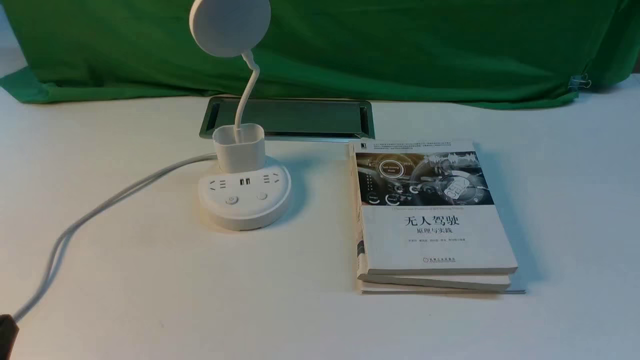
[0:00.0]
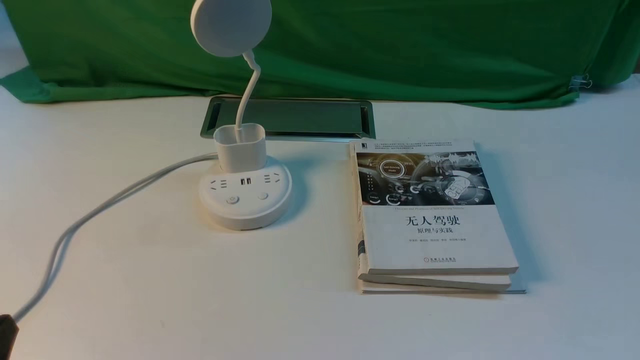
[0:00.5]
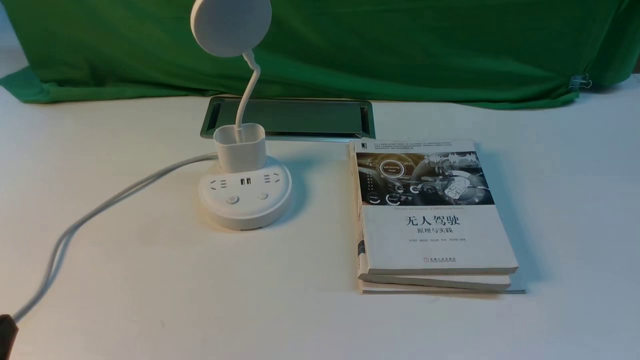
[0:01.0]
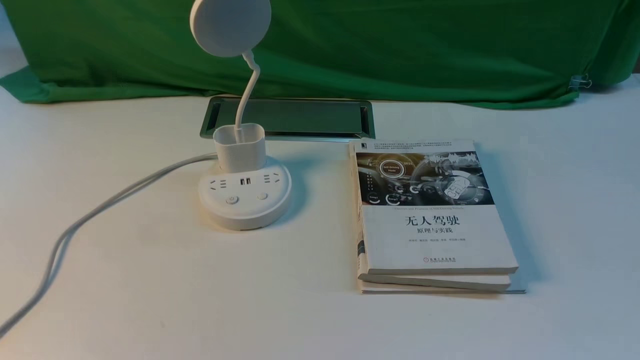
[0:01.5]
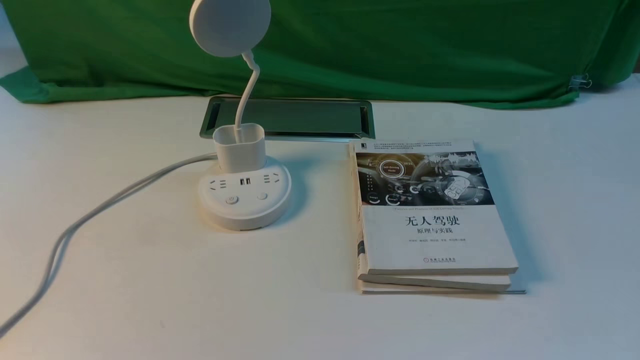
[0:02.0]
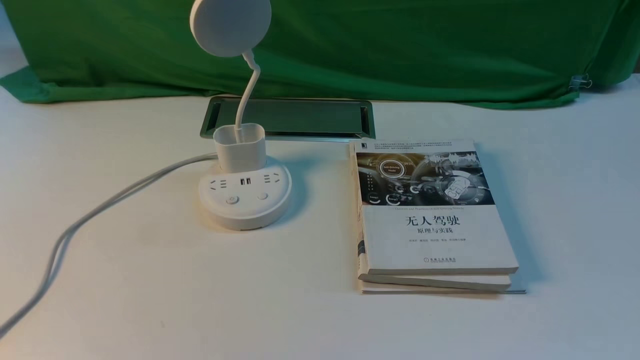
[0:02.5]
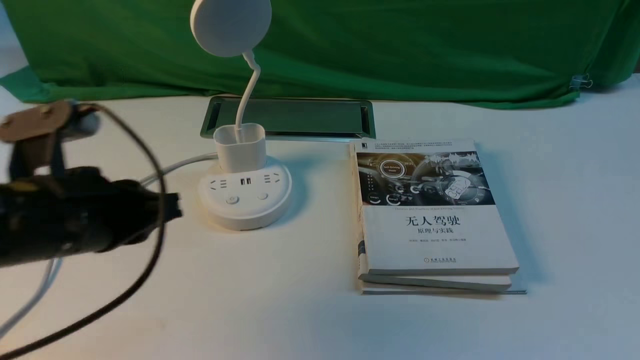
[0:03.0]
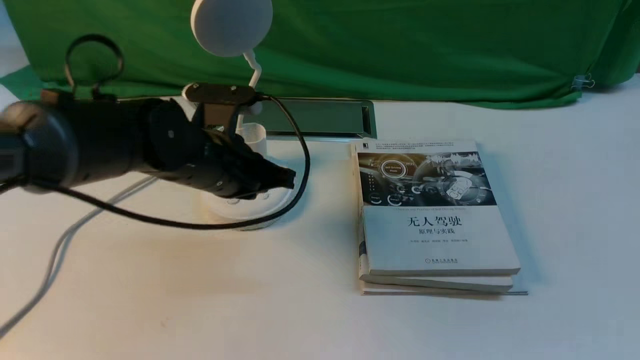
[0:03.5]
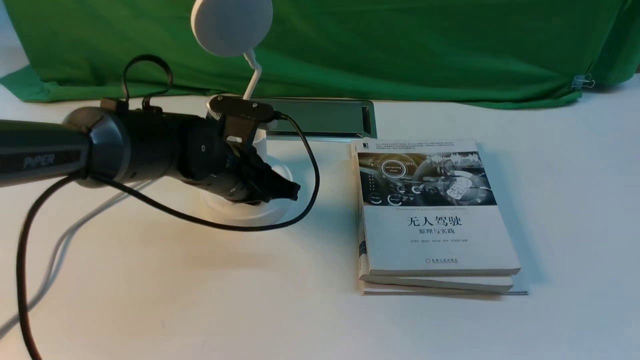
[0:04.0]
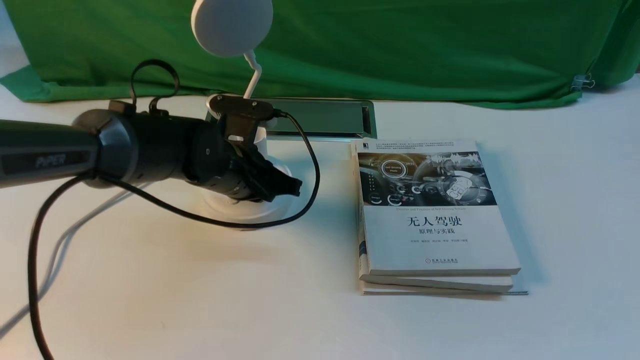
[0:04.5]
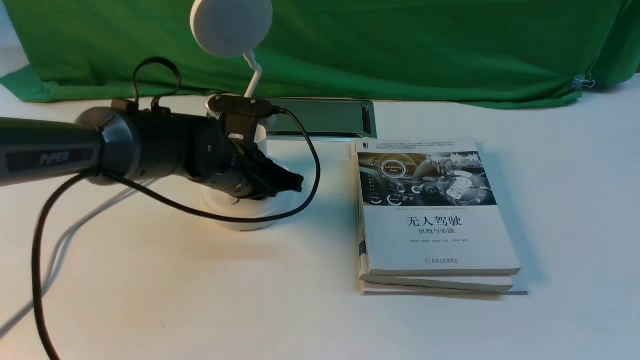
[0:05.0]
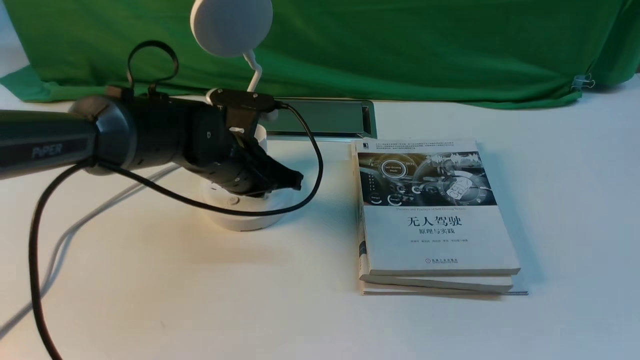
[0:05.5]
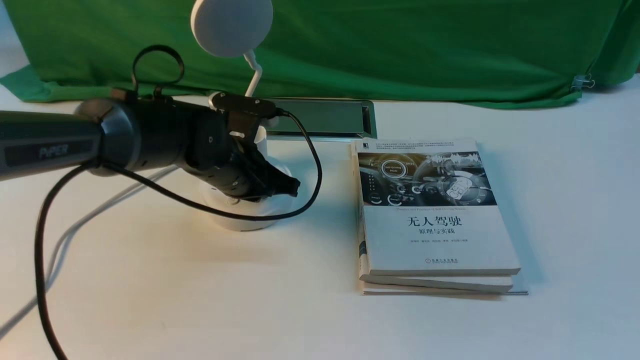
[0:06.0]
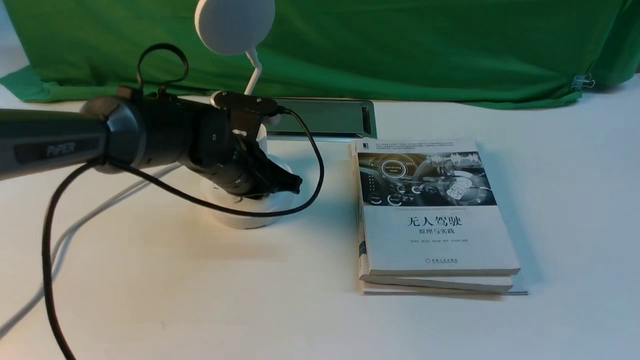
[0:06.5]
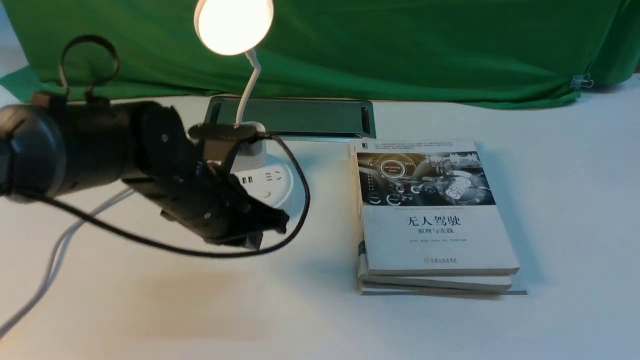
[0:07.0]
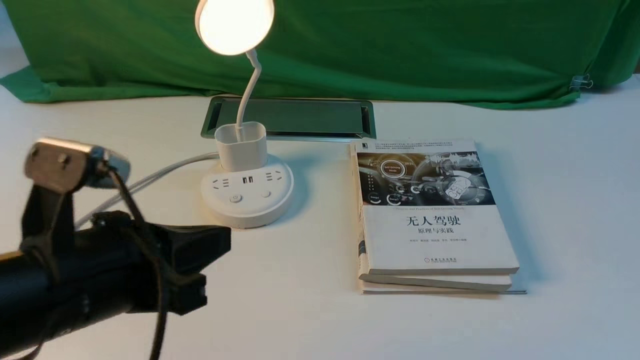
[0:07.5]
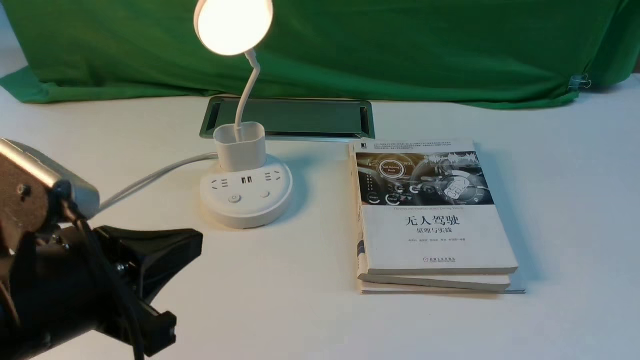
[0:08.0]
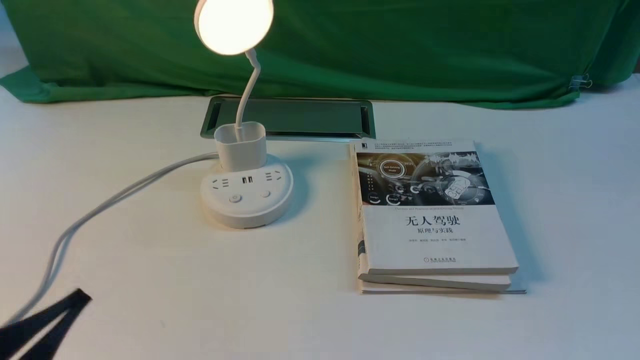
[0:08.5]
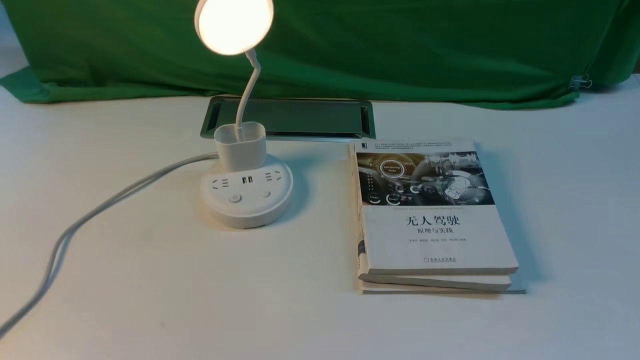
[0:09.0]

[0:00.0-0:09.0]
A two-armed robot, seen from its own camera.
Step, 0:00.0 to 0:07.0: use the left arm to press the button switch on the lamp holder.
0:02.0 to 0:04.5: The left gripper shifts roughly 40 cm forward and to the right.
0:04.5 to 0:07.0: The left gripper shifts by some 5 cm.
0:07.0 to 0:09.0: The left gripper goes about 30 cm backward and to the left.

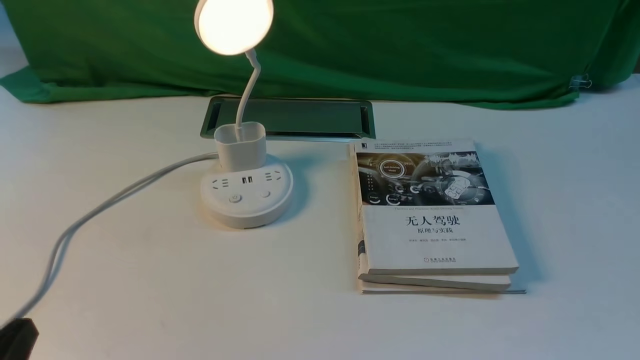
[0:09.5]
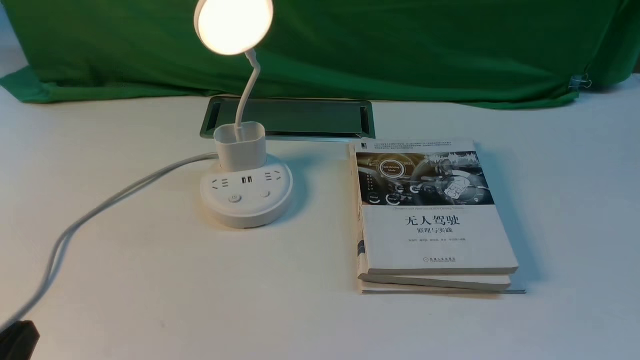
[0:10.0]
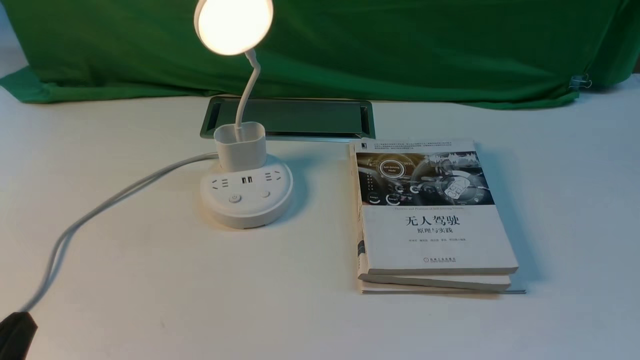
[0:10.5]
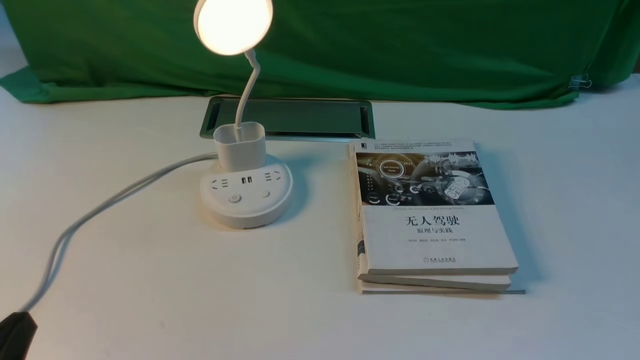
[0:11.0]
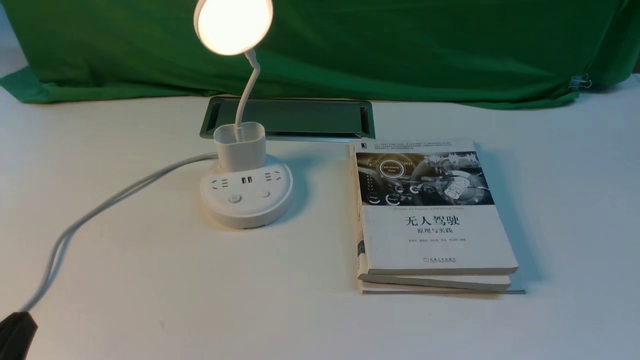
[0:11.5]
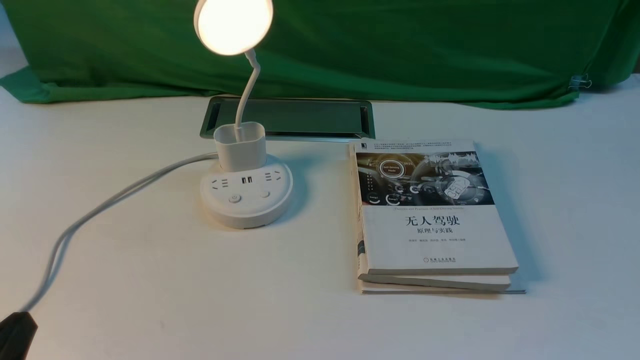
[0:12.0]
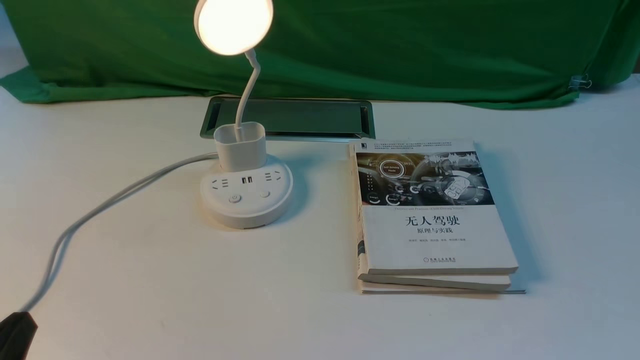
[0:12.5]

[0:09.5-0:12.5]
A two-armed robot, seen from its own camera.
0:11.0 to 0:12.5: Both grippers stay put.

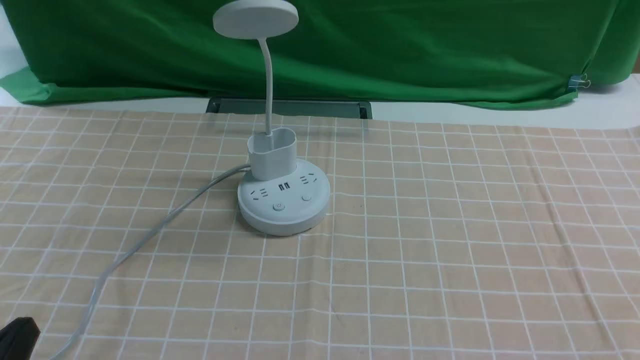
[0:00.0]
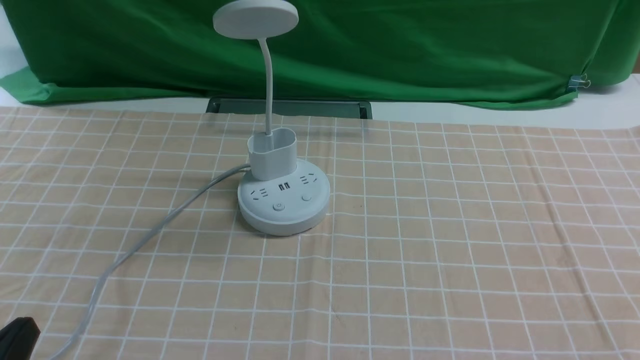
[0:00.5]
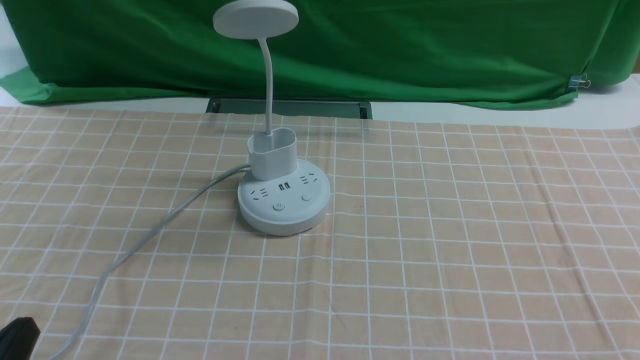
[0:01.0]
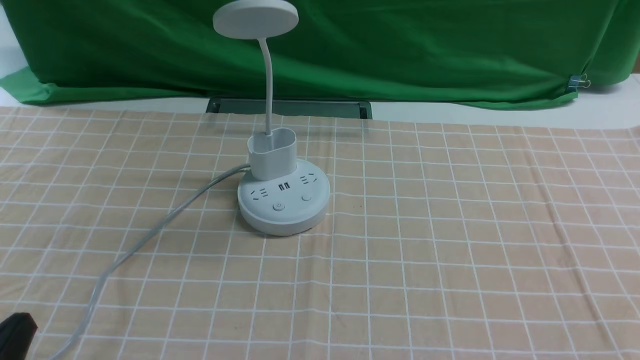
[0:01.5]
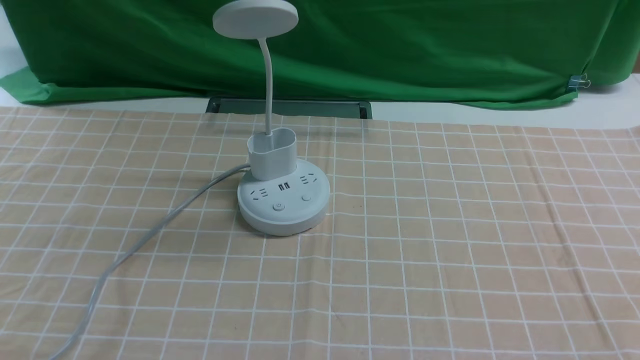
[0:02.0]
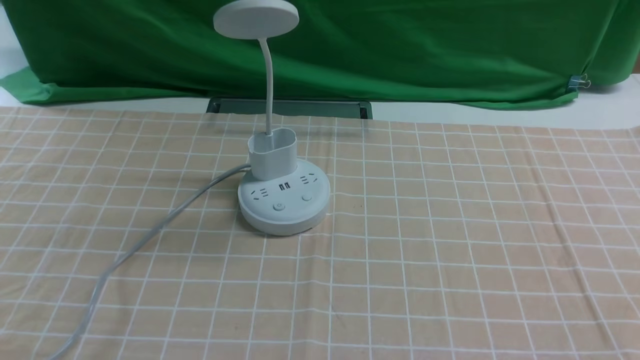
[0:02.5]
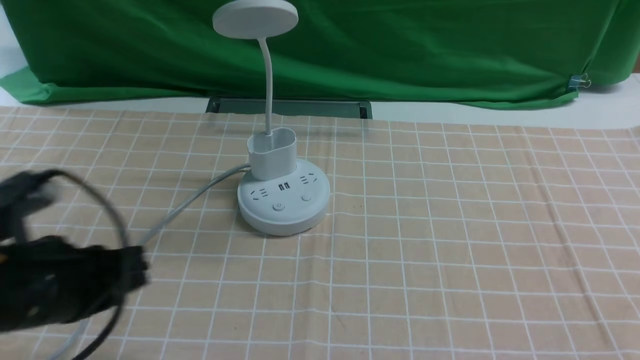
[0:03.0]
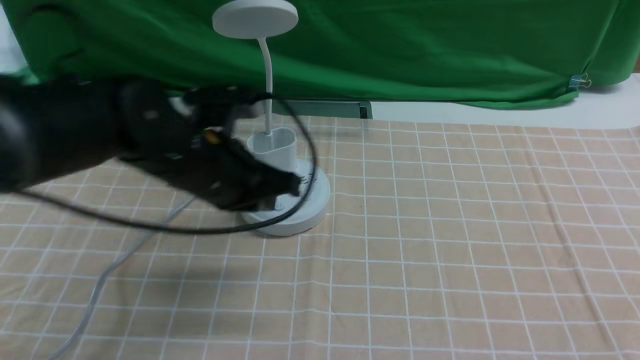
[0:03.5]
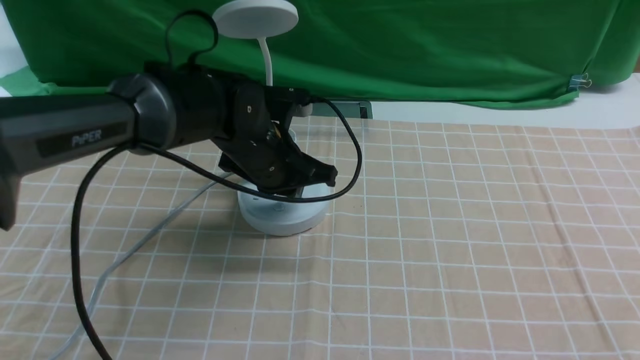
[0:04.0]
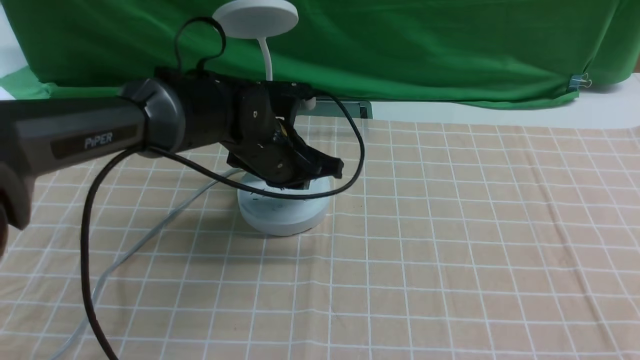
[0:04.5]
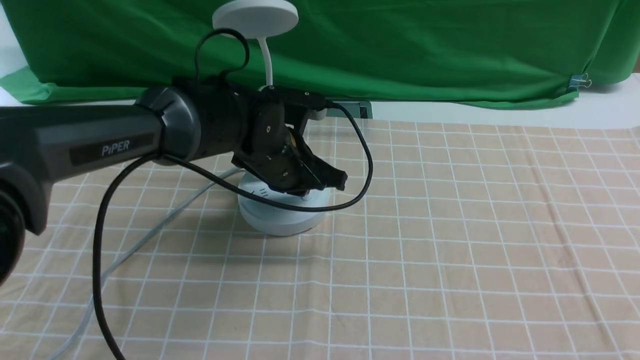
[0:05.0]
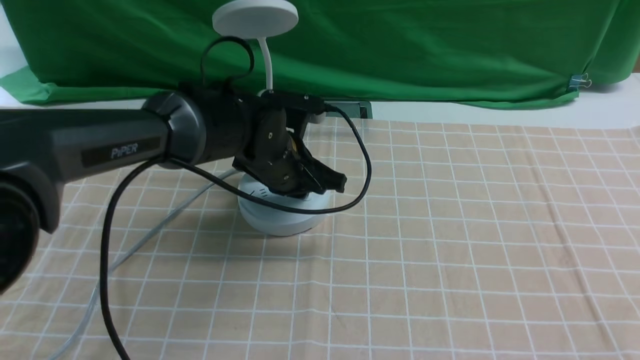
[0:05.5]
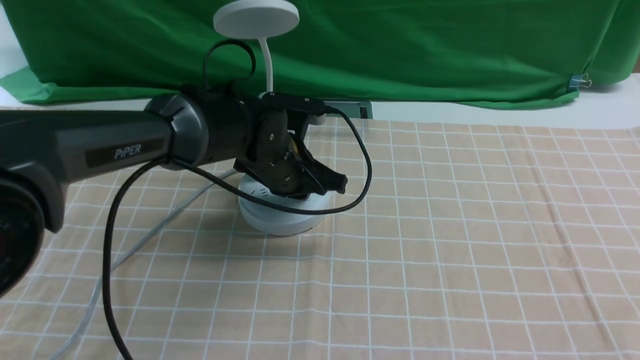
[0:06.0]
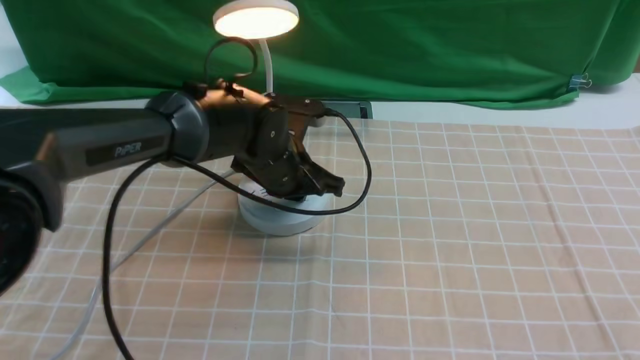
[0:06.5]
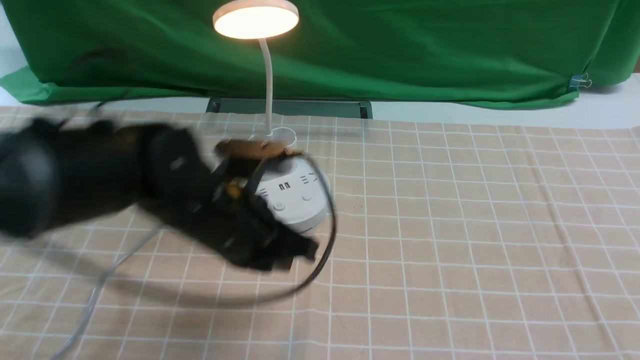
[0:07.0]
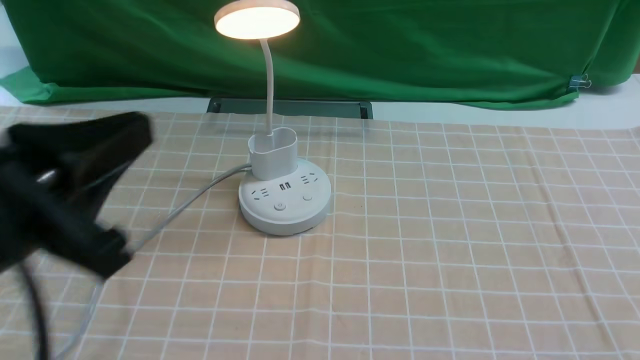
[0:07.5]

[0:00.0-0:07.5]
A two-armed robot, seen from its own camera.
Step, 0:00.0 to 0:06.5: use the left arm to press the button switch on the lamp holder.
0:02.0 to 0:04.0: The left gripper travels forward and to the right by about 40 cm, and closes.
0:04.0 to 0:05.5: The left gripper opens up.
0:05.5 to 0:07.5: The left gripper goes roughly 35 cm backward, upward and to the left.
